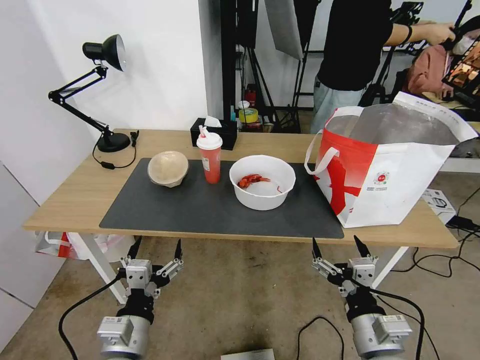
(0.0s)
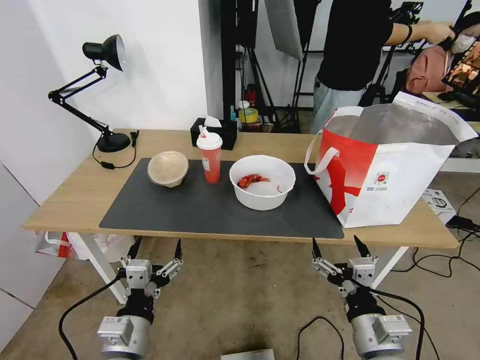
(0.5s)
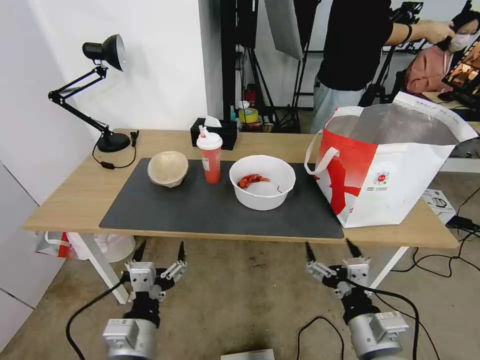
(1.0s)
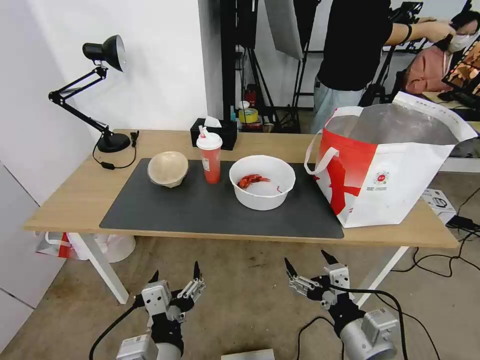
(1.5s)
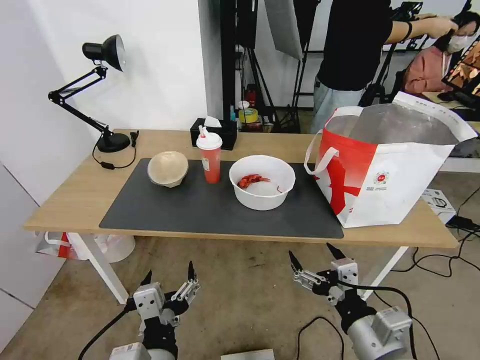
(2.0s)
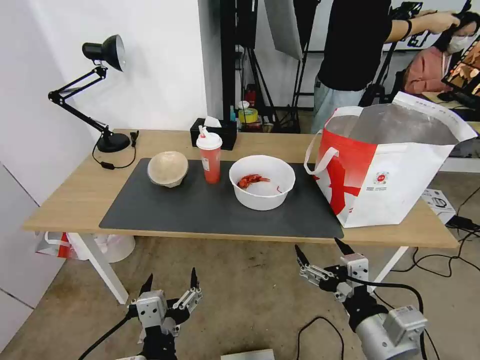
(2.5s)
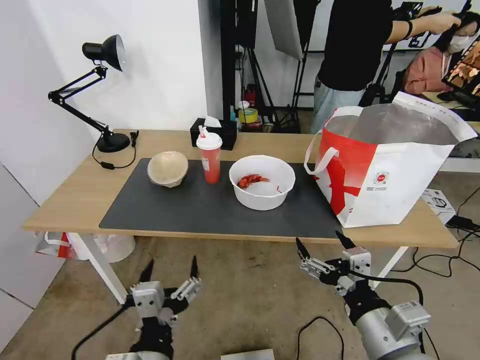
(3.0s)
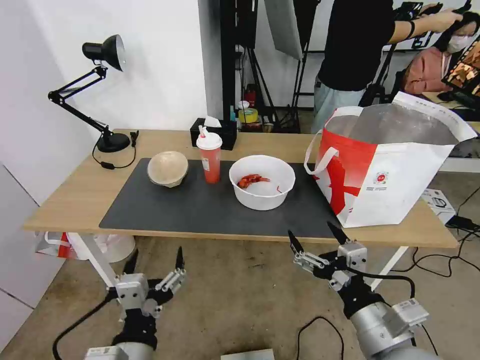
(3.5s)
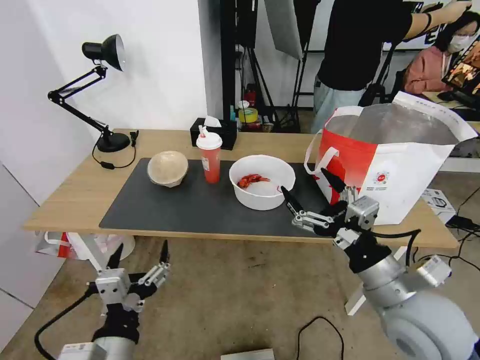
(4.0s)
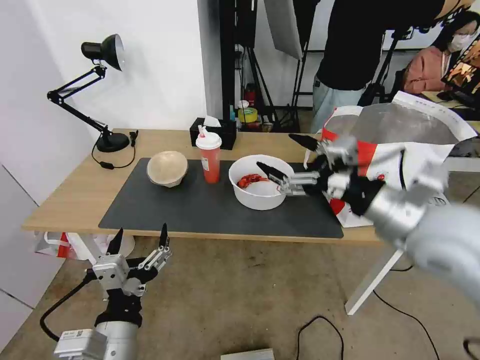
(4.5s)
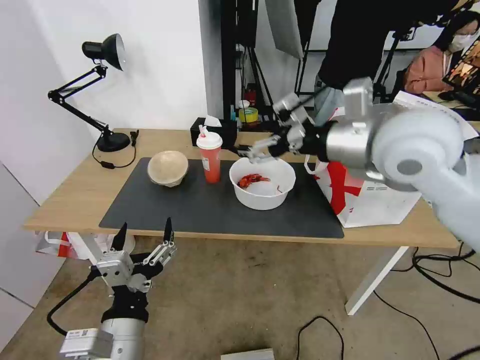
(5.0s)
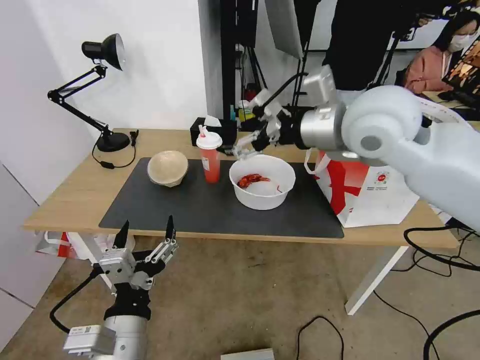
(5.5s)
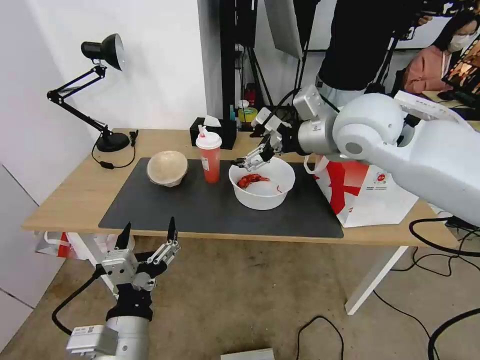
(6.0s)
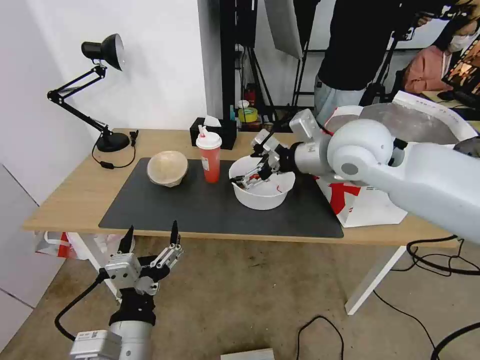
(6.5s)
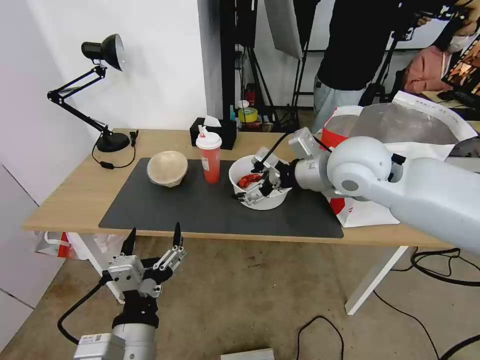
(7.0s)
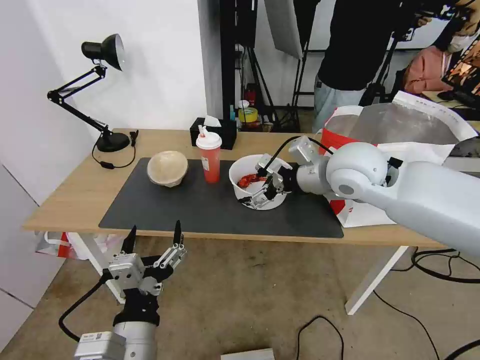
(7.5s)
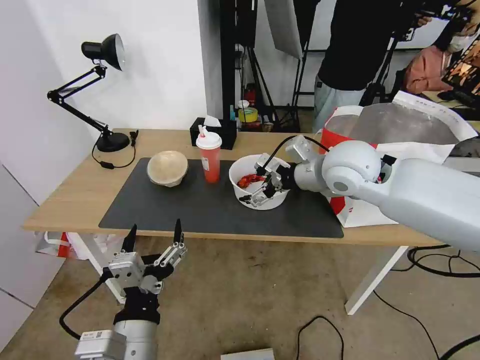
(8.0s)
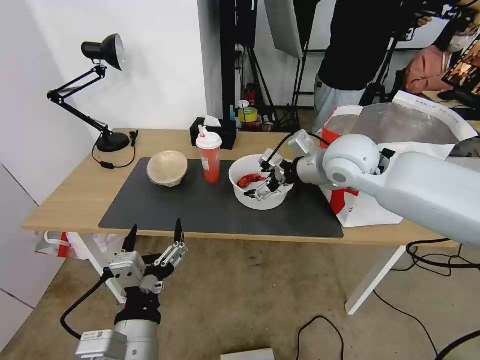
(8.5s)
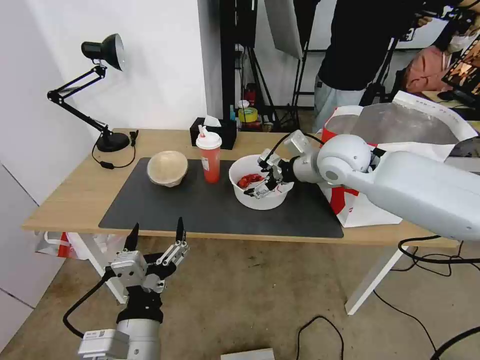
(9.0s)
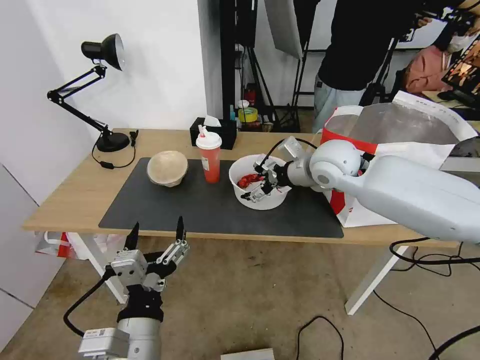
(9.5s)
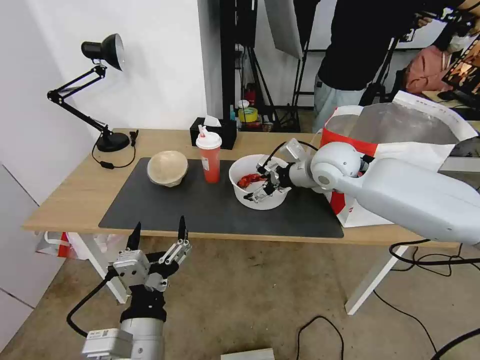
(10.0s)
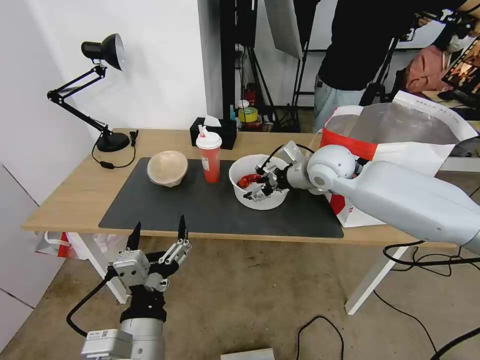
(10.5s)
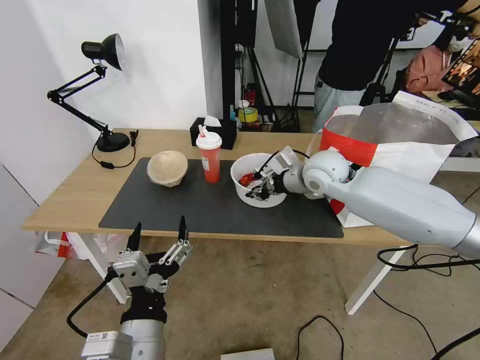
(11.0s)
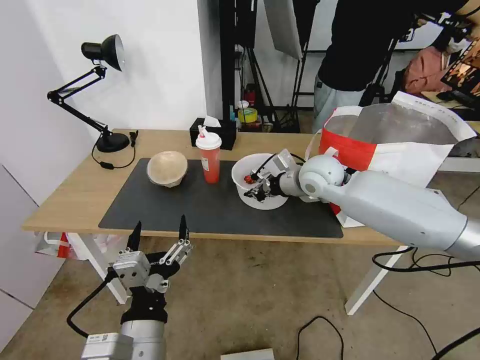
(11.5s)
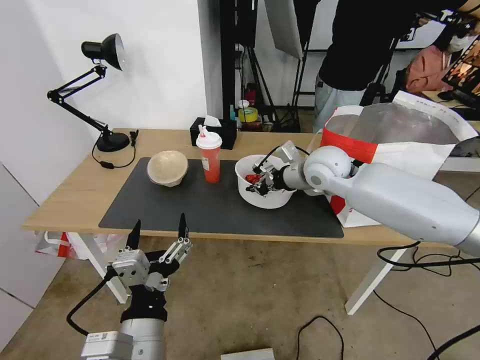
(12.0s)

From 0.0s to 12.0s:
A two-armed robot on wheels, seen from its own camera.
Task of the whole recording: Pick up the trash from the table and place it into the takeout bag.
From 2.0s to 4.0s: The right gripper moves forward and upward, some 10 cm; the left gripper shifts some 5 cm to the left.
From 4.0s to 6.0s: The right gripper travels forward and upward by some 30 cm.
From 6.0s to 8.0s: The right gripper moves downward, approximately 10 cm.
From 8.0s to 10.0s: The right gripper shifts about 5 cm forward.
From 10.0s to 12.0s: The right gripper closes its fingers.

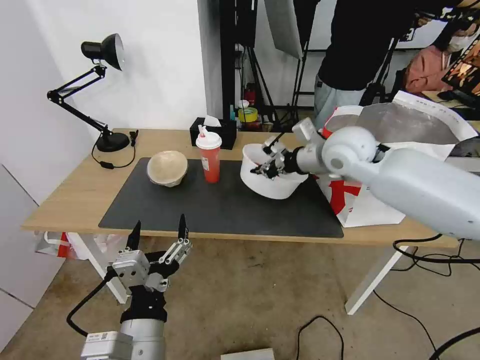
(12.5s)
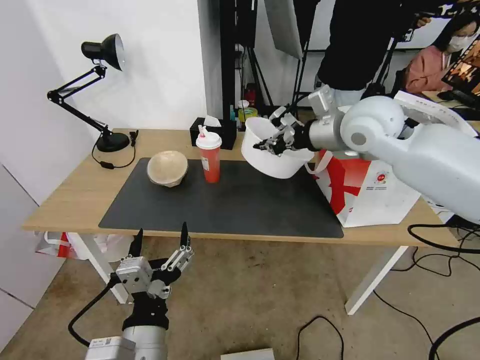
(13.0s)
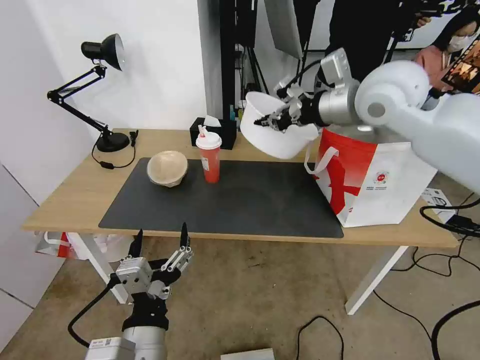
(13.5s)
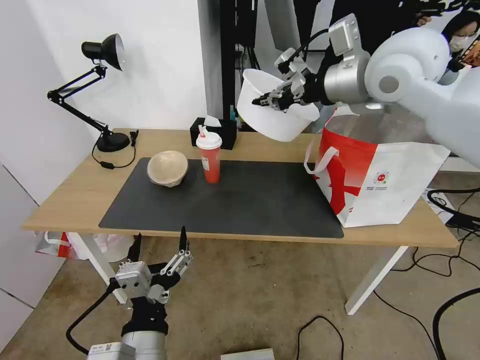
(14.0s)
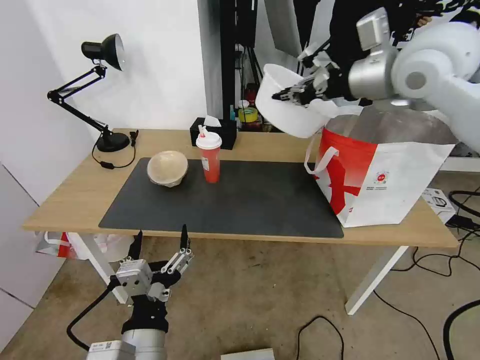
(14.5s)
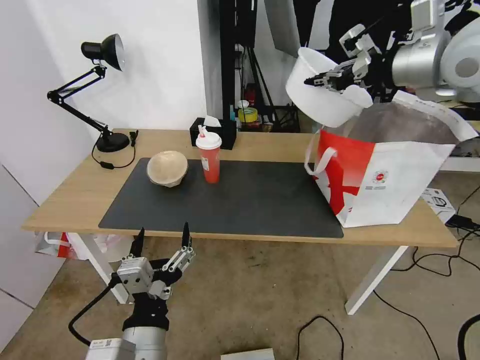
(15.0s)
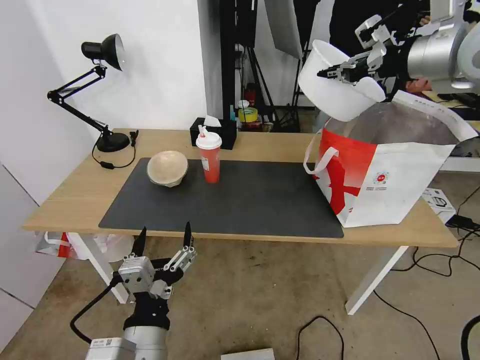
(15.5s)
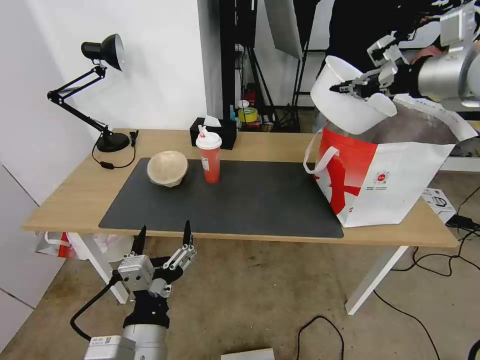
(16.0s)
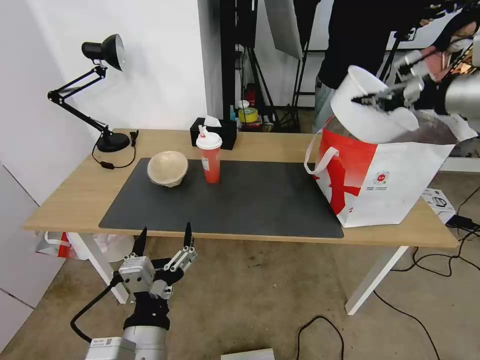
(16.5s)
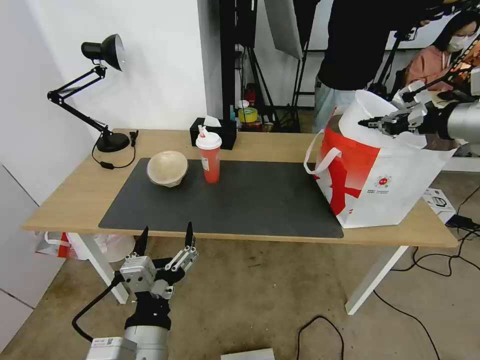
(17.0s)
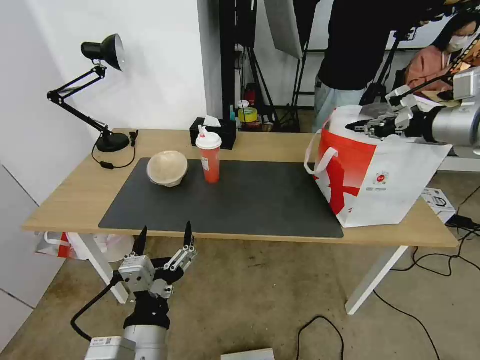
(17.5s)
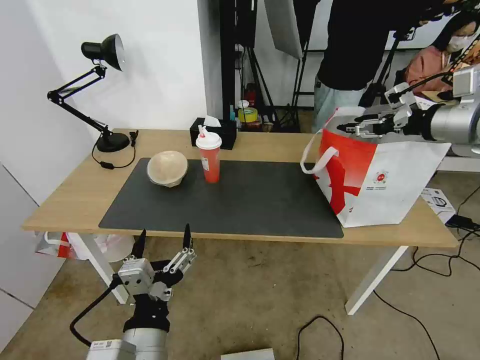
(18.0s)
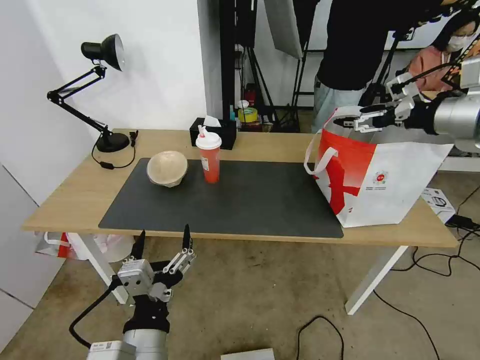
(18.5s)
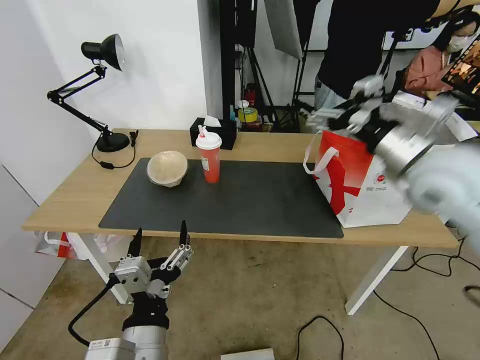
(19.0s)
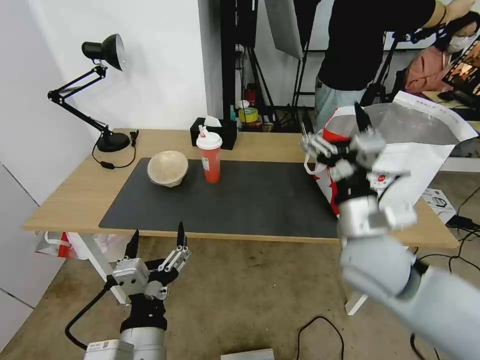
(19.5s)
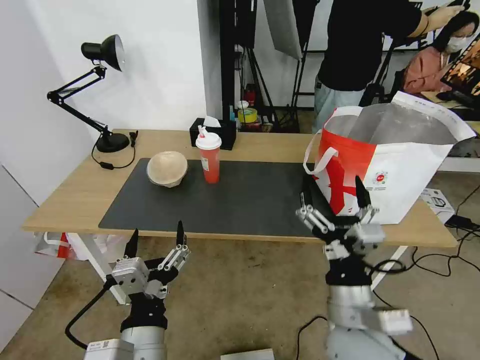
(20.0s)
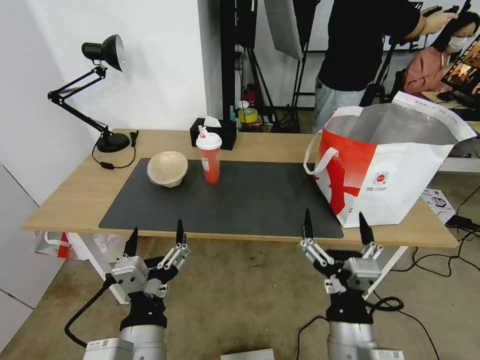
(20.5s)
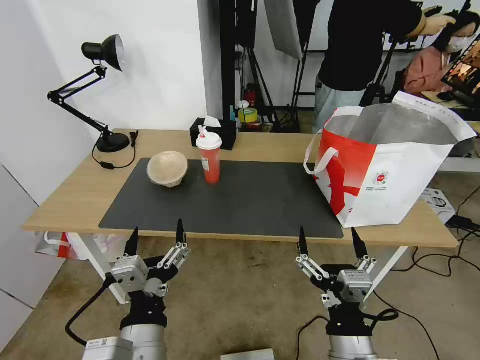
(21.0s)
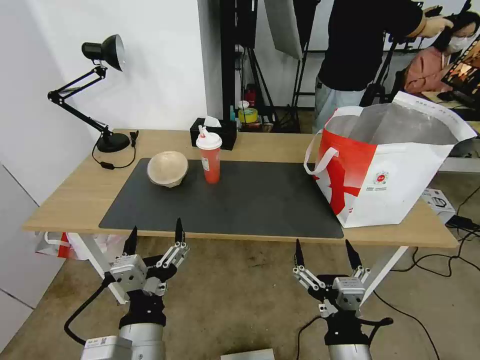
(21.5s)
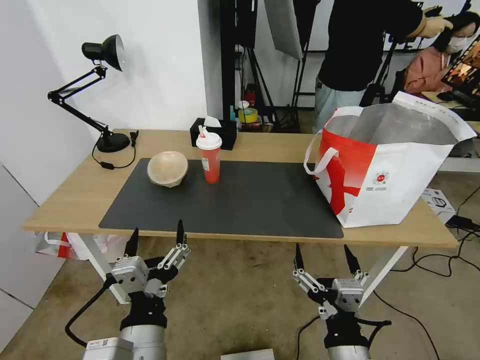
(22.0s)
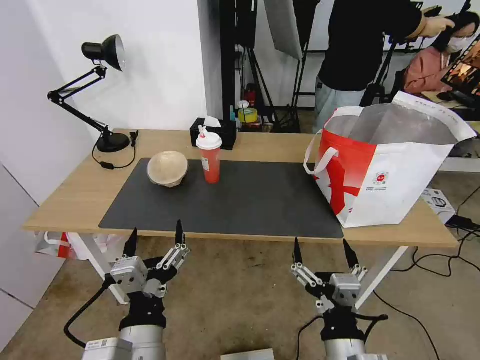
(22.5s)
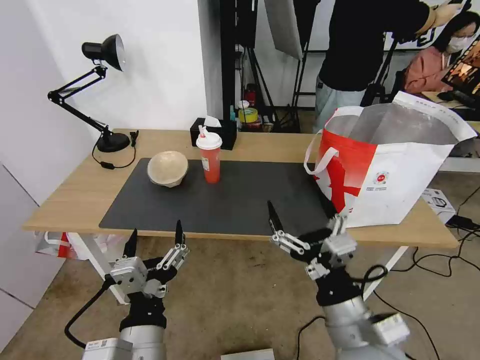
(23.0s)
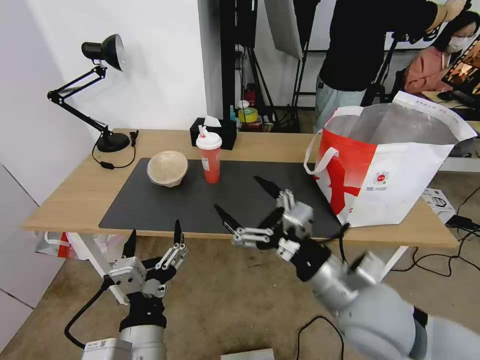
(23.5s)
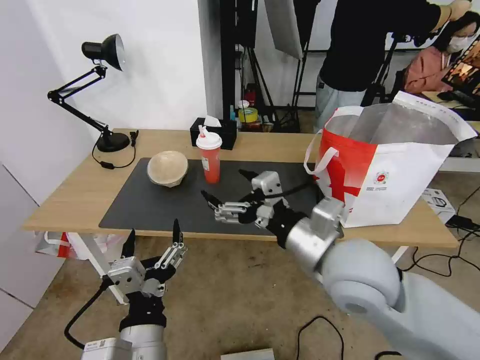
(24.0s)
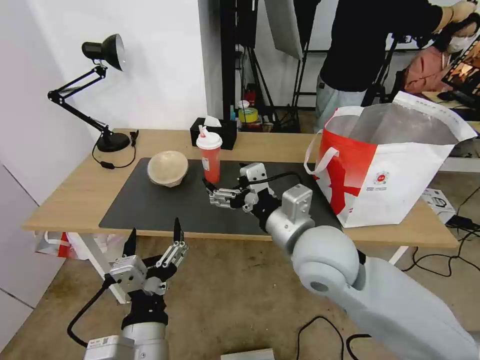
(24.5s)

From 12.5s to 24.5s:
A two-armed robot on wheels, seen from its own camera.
Task of the whole recording: Pick up the trash from the table and place it into the takeout bag.
From 12.5s to 14.5s: The right gripper shifts roughly 15 cm upward.
From 14.5s to 16.5s: The right gripper travels to the right by some 15 cm.
From 16.5s to 18.5s: The right gripper opens its fingers.
From 18.5s to 20.5s: The right gripper heads downward, backward and to the left, covering roughly 50 cm.
From 20.5s to 22.5s: The grippers move only a little.
From 22.5s to 24.5s: The right gripper is displaced forward and upward by roughly 25 cm.

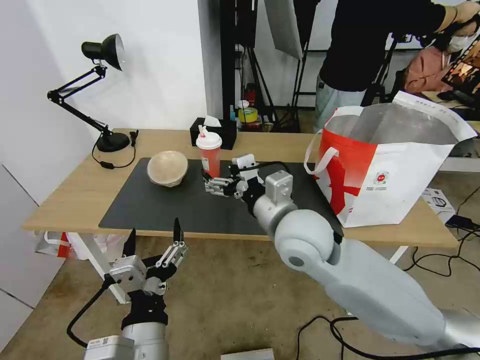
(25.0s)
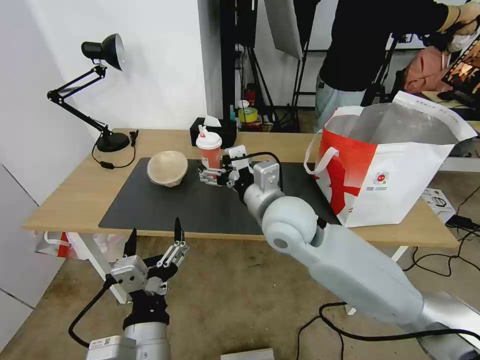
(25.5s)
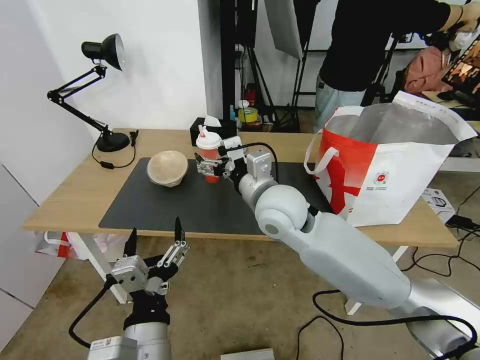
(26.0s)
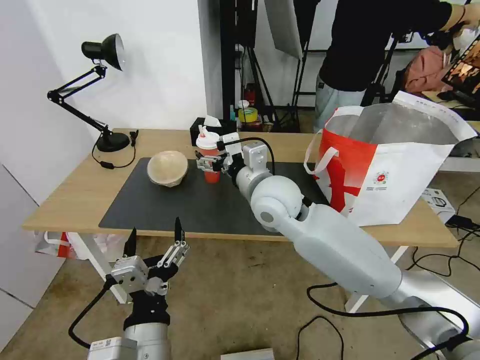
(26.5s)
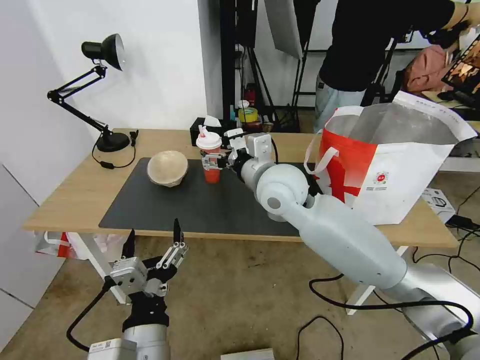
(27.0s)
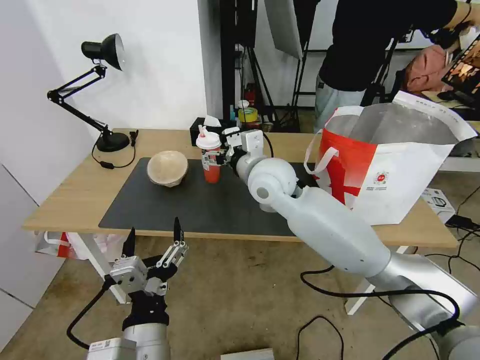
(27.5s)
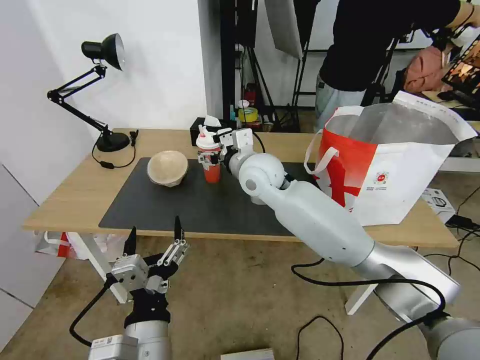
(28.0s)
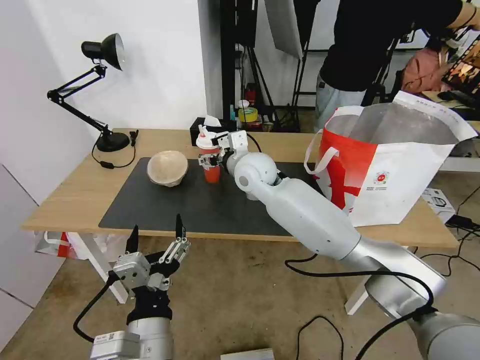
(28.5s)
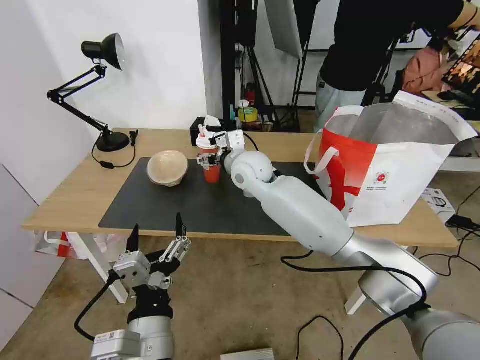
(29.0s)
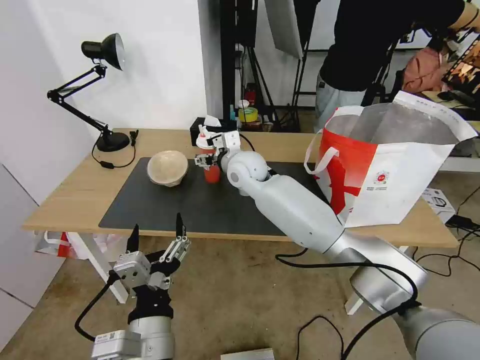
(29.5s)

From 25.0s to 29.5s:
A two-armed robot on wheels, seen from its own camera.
Task of the whole recording: Pick up the trash from the table and place it into the takeout bag.
From 25.0s to 27.0s: The right gripper travels forward by approximately 10 cm.
From 27.0s to 29.5s: The right gripper is displaced forward, to the left and downward by roughly 15 cm.
